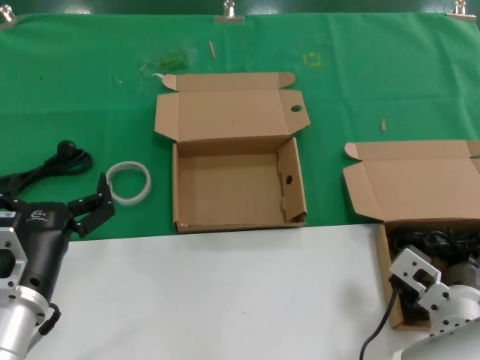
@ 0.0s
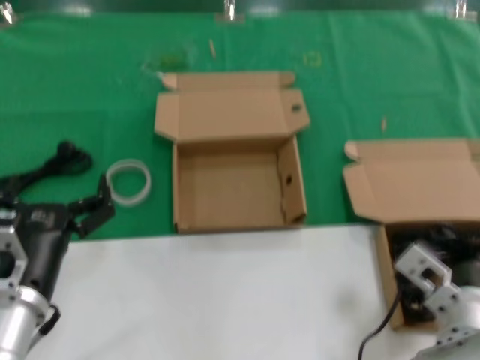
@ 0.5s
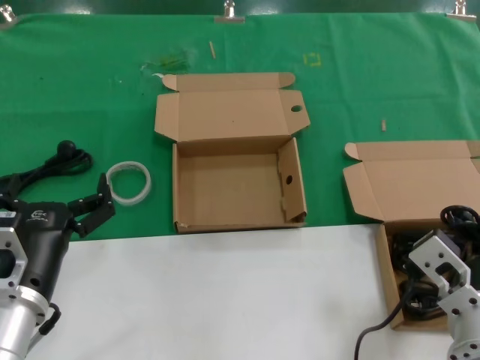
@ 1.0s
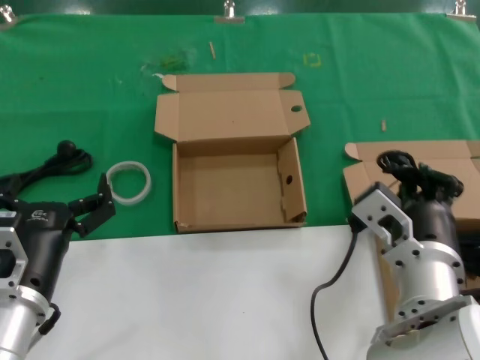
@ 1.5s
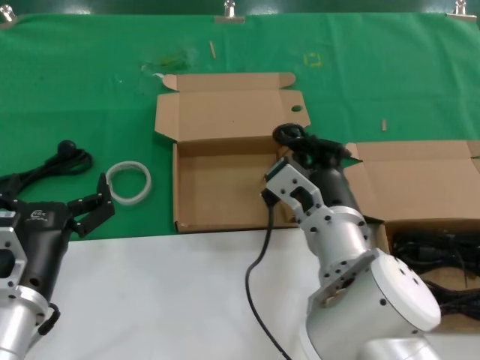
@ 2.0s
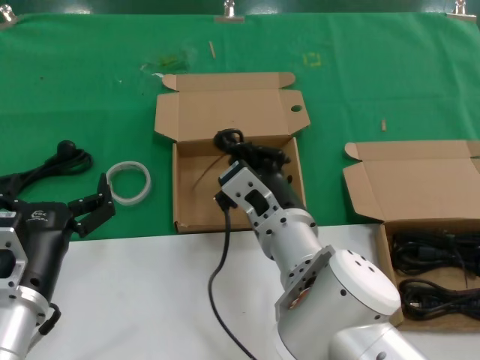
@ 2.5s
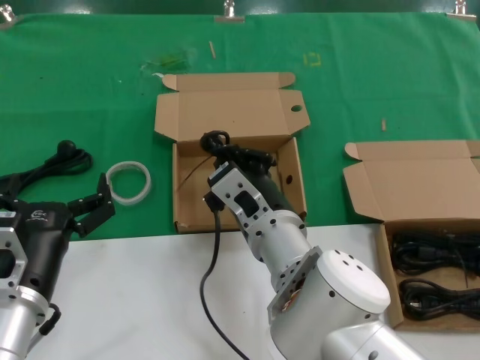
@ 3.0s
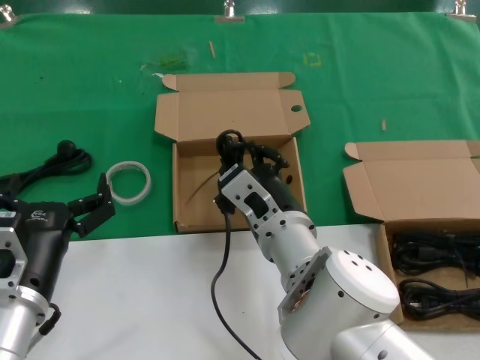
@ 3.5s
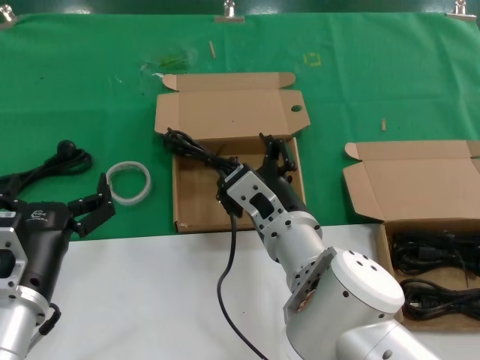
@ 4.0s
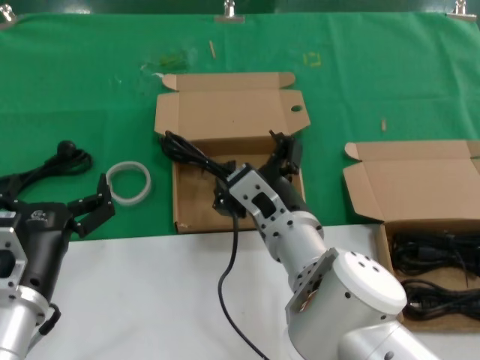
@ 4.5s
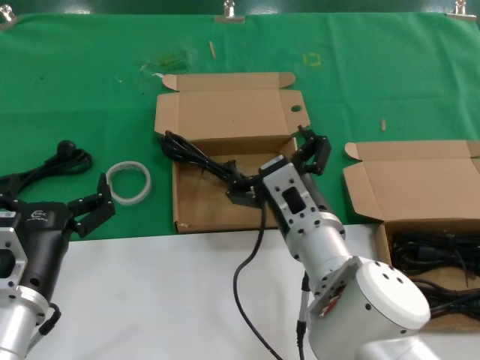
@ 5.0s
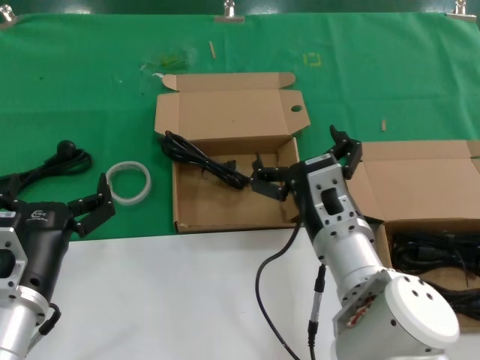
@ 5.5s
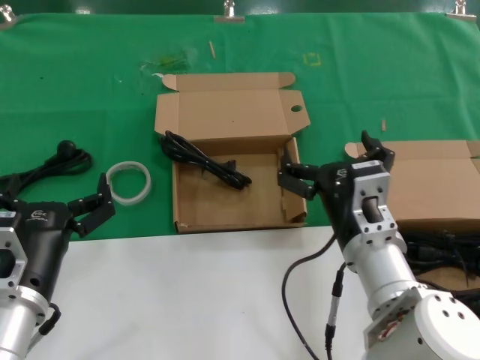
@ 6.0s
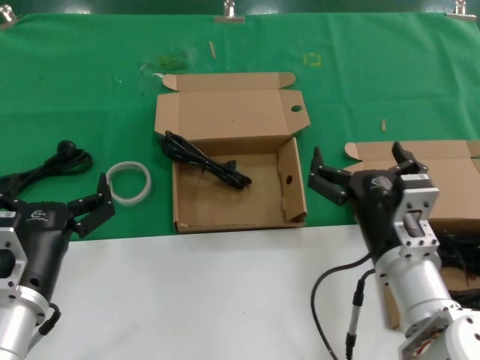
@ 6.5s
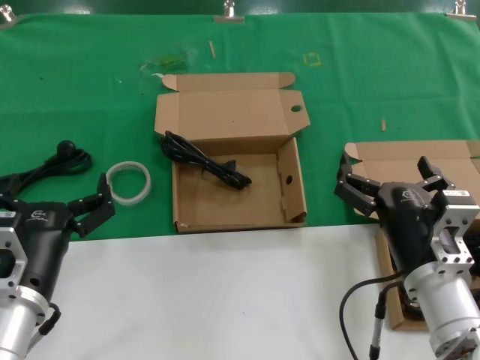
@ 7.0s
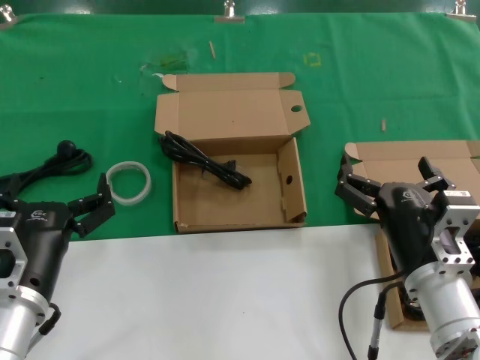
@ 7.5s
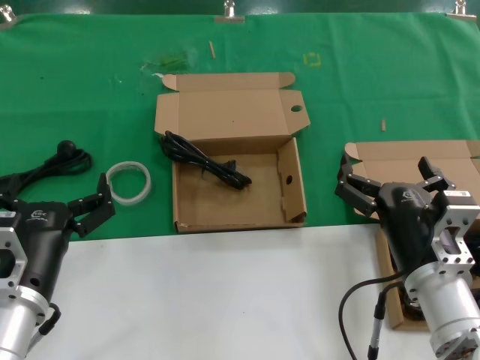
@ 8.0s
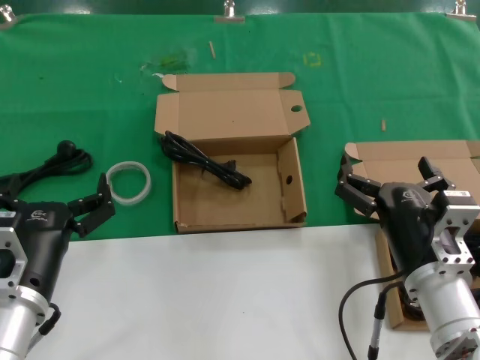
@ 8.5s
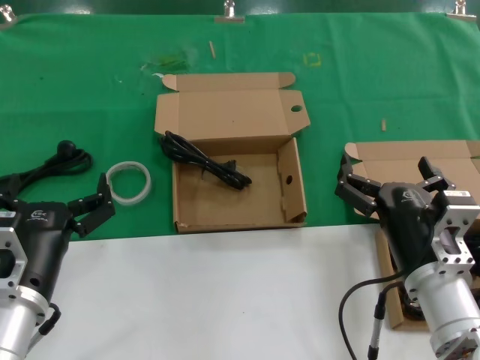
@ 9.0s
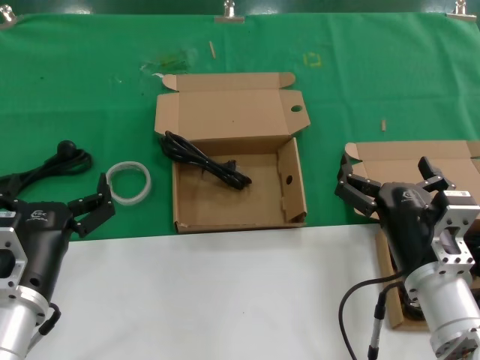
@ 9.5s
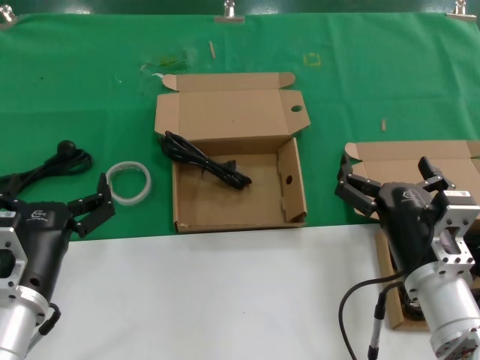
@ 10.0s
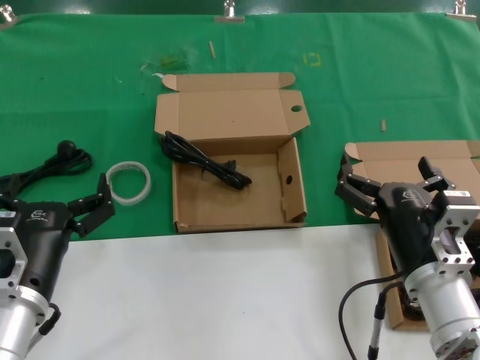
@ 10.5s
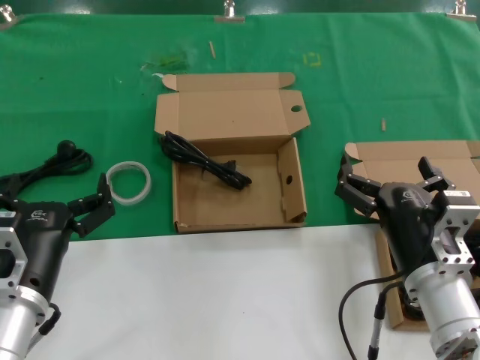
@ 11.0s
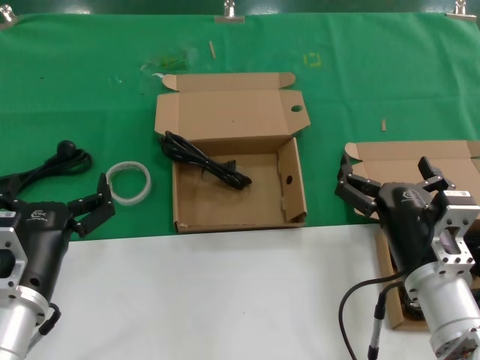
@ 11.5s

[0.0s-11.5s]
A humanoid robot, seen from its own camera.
Task of the whole recording: take the parts from the box containing them and put them into an empty box.
Step, 0.0s to 4.0s: Place the data cable in the another box.
0.0s to 2.0s: The right hand heads to the left and upward, covering some 15 cm.
2.0s to 4.0s: The hands move only a little.
4.0s to 6.0s: The right hand travels to the right by about 10 cm.
6.0s to 7.5s: The right hand heads to the right, covering roughly 5 cm.
7.5s to 11.5s: The two hands keep their place.
